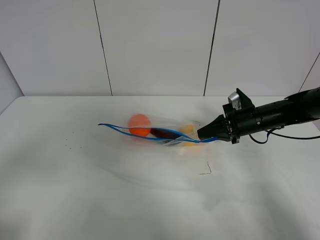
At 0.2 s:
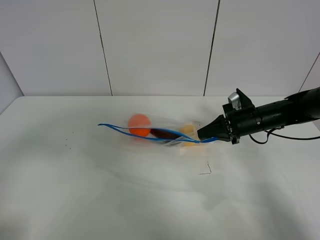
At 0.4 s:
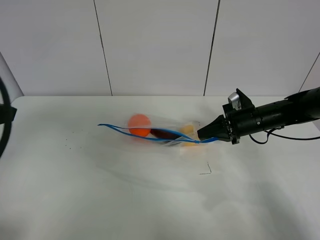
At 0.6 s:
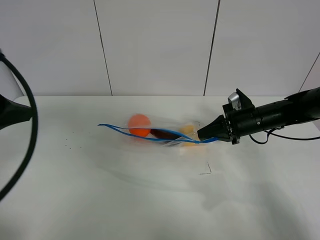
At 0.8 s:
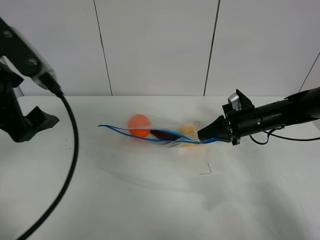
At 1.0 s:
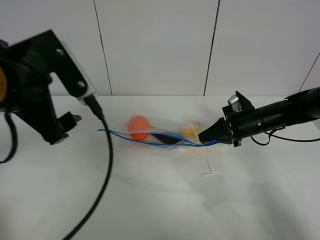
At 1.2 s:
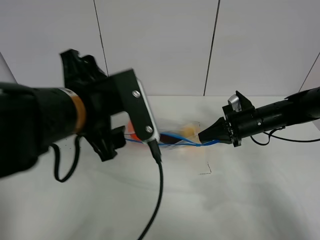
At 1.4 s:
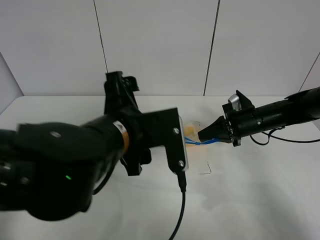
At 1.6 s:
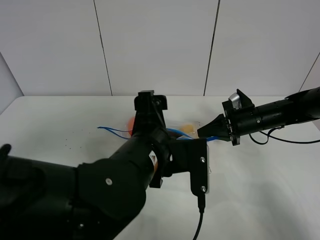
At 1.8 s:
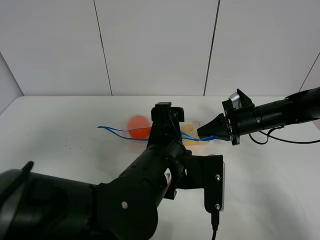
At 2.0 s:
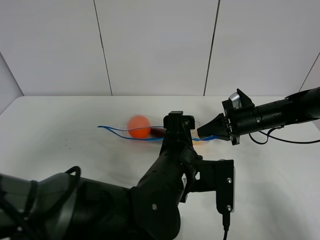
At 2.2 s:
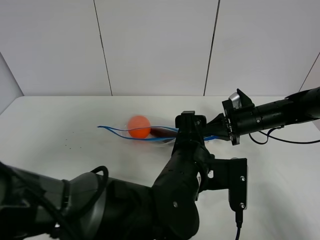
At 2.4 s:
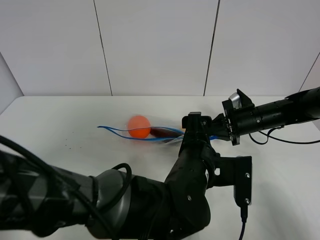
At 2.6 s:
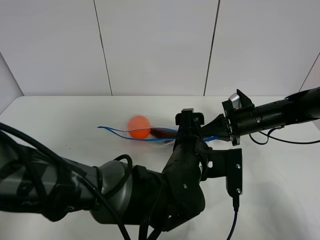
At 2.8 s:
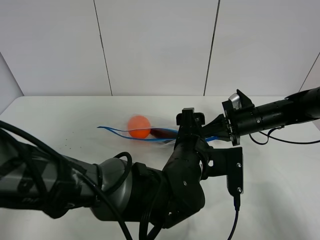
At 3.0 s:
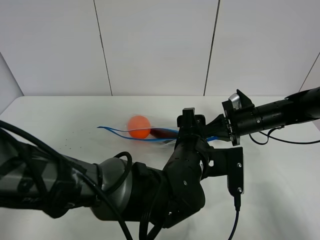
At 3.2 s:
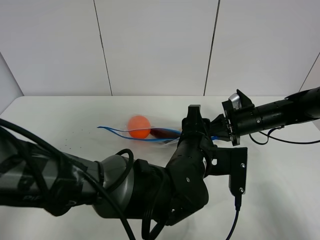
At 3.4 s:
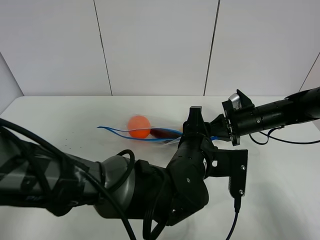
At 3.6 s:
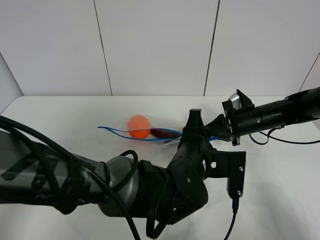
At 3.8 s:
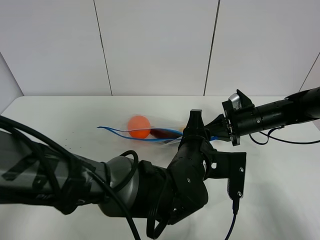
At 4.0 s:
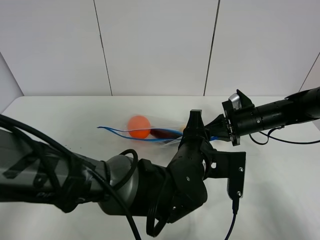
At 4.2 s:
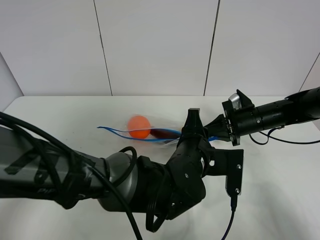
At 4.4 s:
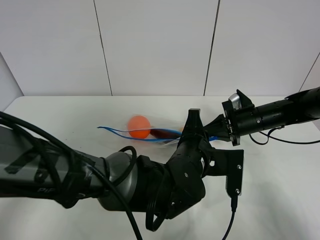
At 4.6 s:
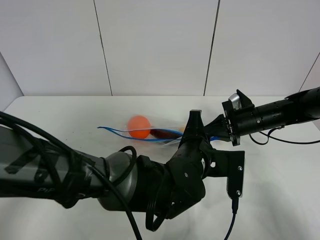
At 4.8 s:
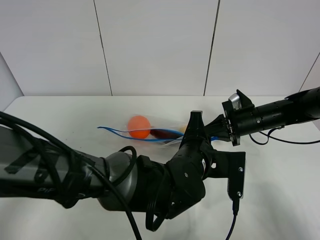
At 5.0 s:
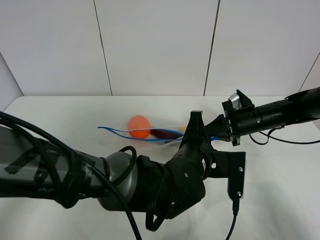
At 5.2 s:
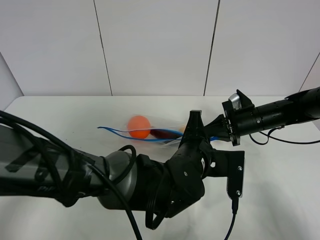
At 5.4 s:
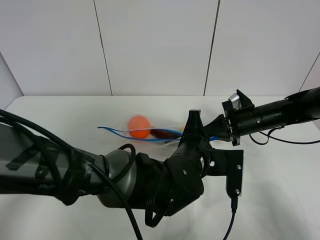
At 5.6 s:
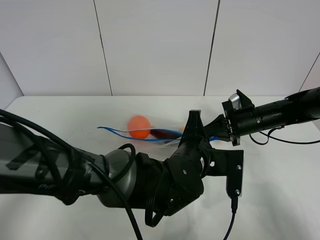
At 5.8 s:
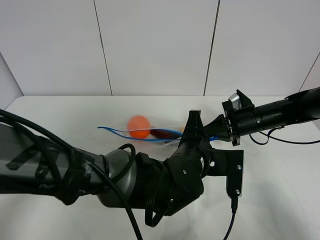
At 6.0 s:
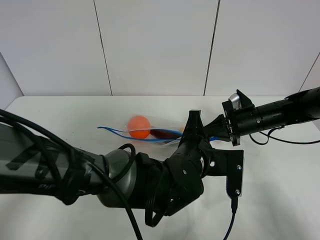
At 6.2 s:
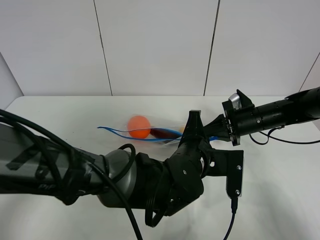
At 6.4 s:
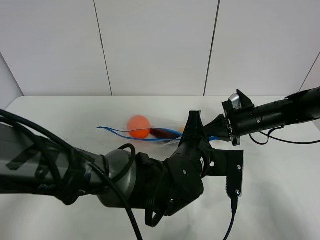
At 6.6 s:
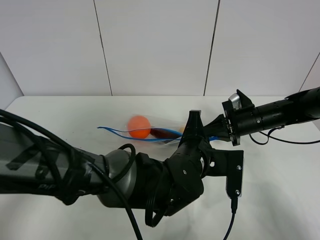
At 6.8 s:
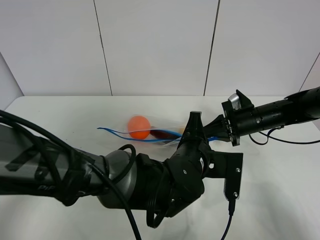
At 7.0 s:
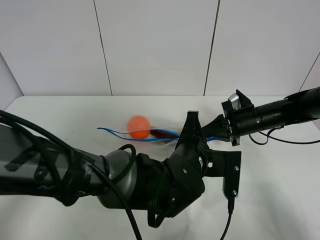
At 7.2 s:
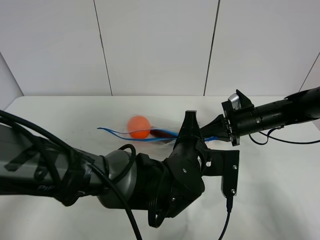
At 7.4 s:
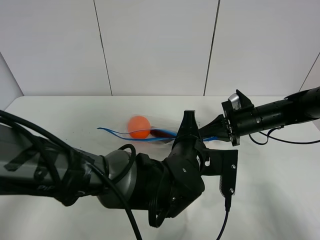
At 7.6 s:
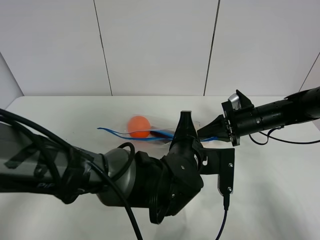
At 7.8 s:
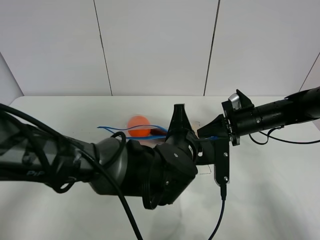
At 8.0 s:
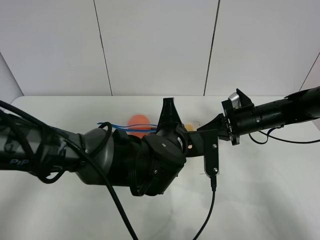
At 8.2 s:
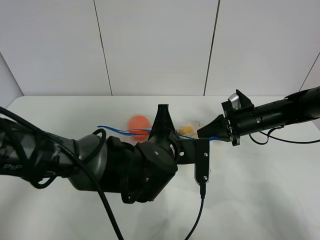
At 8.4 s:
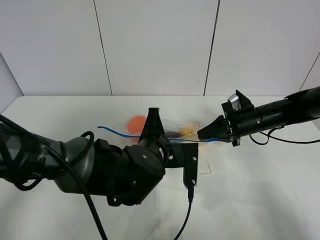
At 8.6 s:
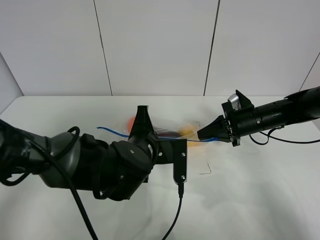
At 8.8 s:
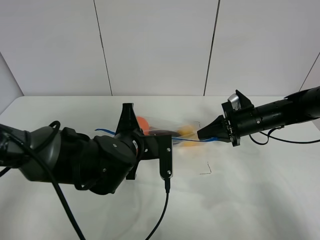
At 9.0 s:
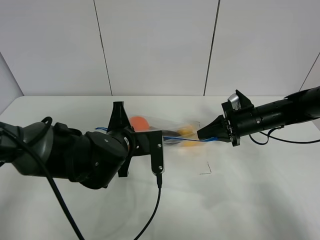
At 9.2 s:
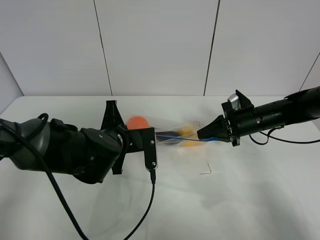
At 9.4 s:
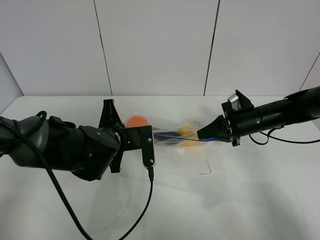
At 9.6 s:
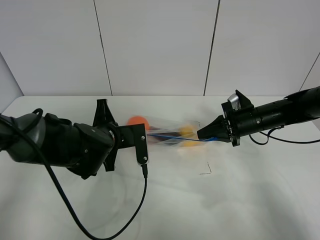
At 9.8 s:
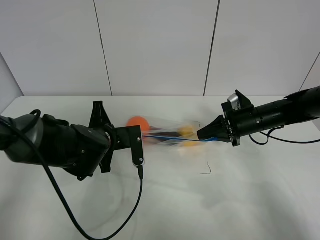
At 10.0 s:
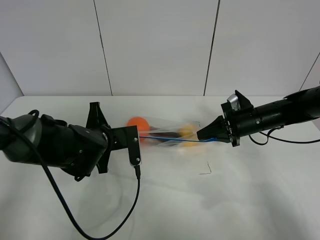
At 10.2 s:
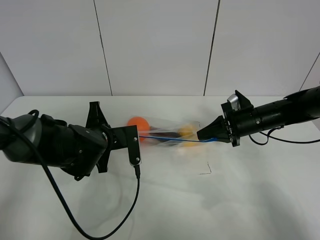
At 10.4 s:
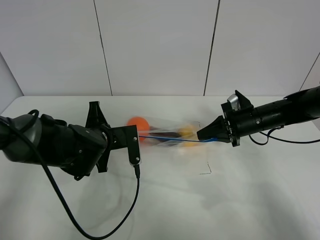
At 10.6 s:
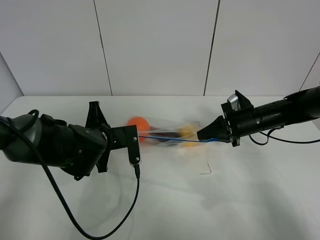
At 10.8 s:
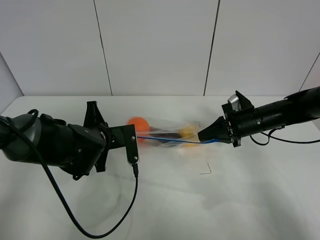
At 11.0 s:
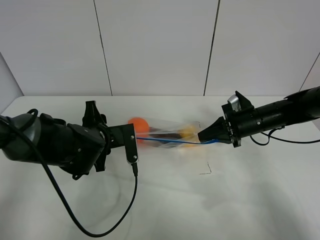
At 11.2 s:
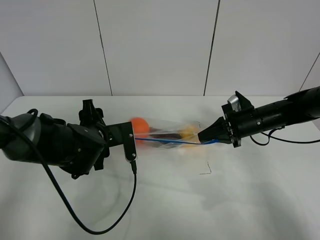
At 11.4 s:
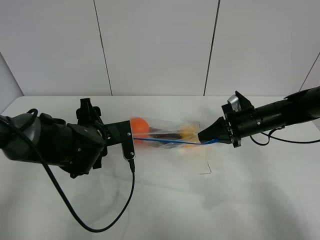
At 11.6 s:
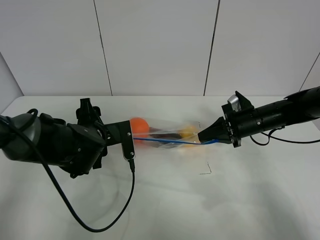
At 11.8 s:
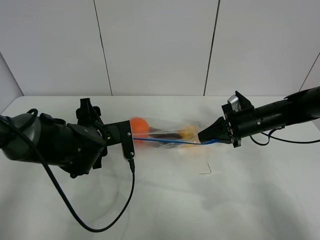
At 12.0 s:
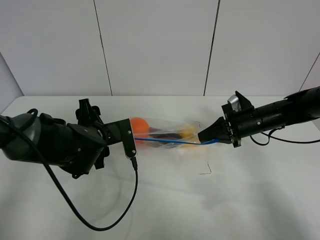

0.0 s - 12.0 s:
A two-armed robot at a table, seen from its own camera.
Step, 0.0 s - 11.4 s: Pull the fruit bag with left gripper.
0.0 s - 1.6 s: The left gripper moves to the right, roughly 30 cm.
1.6 s - 3.0 s: The left gripper moves to the right and downward, some 10 cm.
3.0 s - 4.4 s: The left gripper closes.
4.4 s - 6.0 s: Neither gripper changes place.
6.0 s - 7.6 s: The grippers stay close to where they were, moving slightly.
7.6 s - 9.0 s: The left gripper heads to the left, covering some 10 cm.
9.0 s - 10.4 s: The left gripper shifts by approximately 5 cm.
10.4 s - 12.0 s: The left gripper opens.

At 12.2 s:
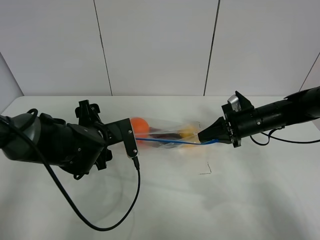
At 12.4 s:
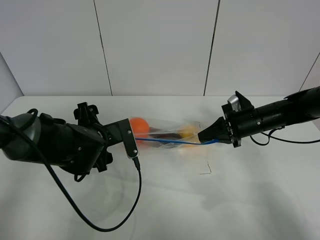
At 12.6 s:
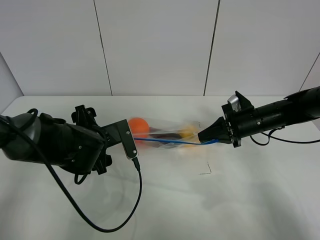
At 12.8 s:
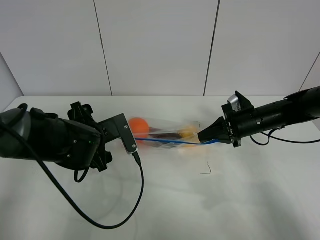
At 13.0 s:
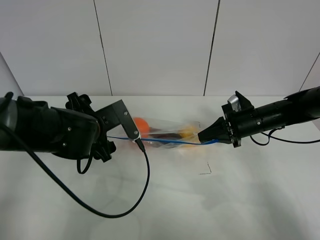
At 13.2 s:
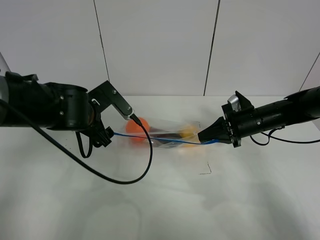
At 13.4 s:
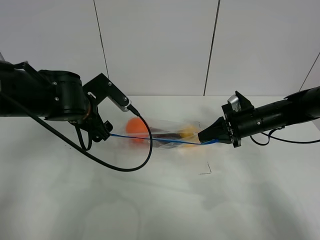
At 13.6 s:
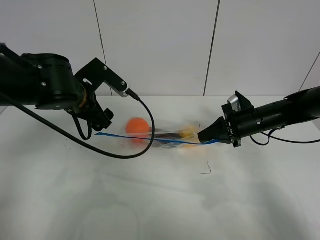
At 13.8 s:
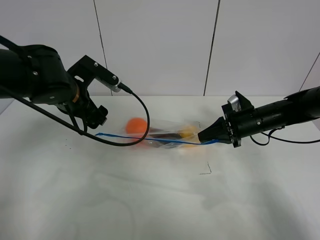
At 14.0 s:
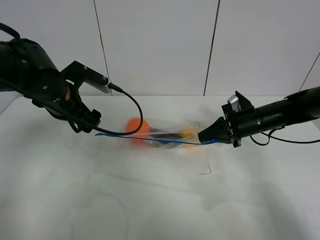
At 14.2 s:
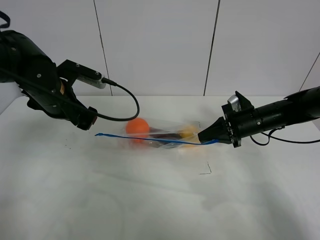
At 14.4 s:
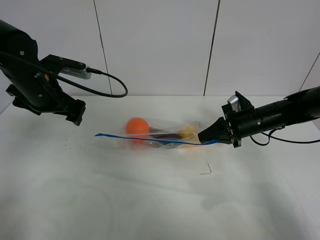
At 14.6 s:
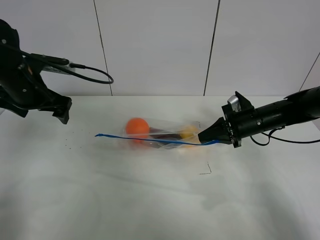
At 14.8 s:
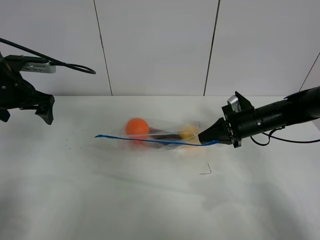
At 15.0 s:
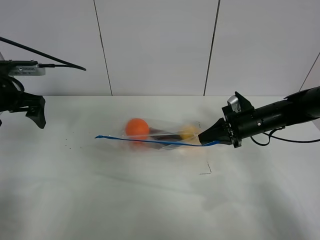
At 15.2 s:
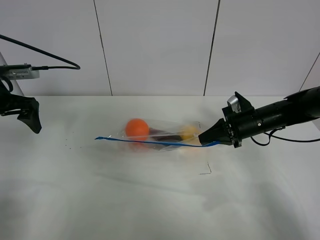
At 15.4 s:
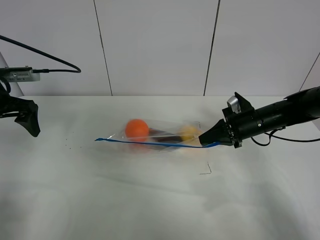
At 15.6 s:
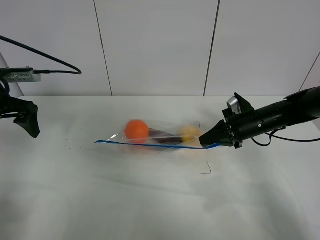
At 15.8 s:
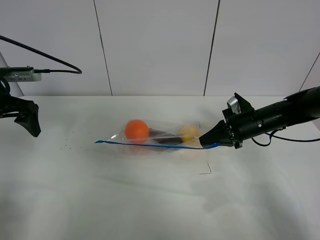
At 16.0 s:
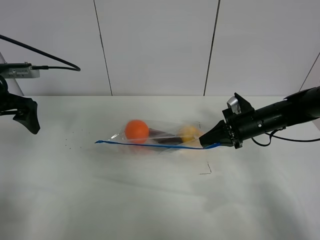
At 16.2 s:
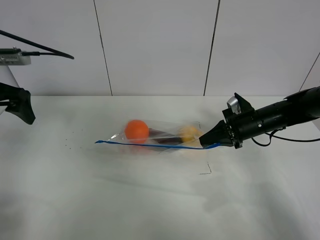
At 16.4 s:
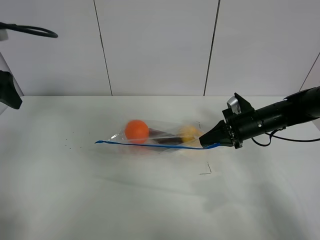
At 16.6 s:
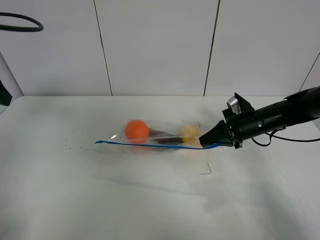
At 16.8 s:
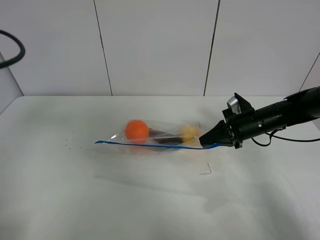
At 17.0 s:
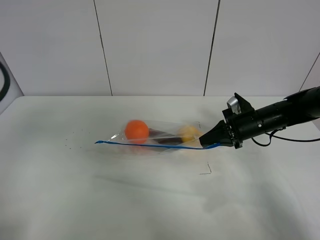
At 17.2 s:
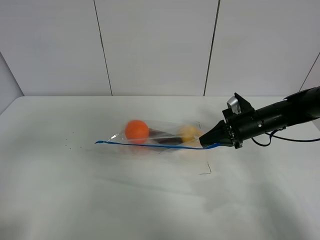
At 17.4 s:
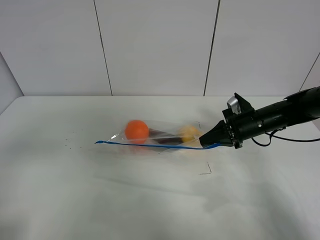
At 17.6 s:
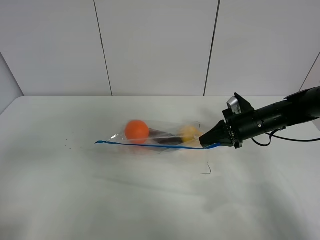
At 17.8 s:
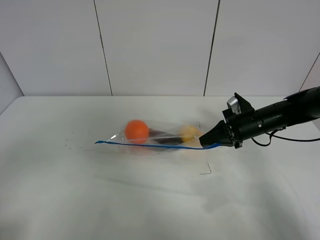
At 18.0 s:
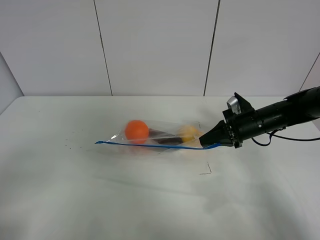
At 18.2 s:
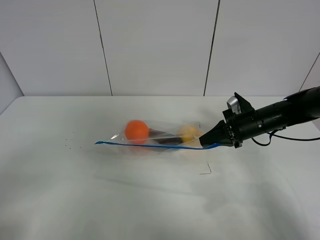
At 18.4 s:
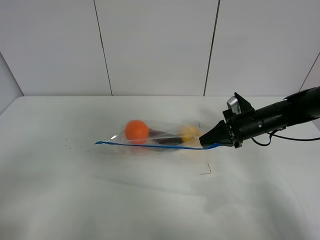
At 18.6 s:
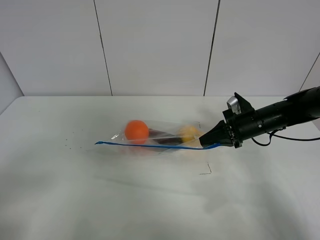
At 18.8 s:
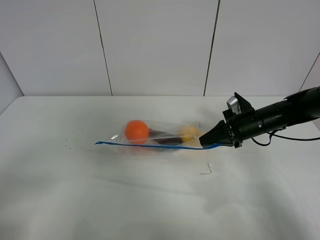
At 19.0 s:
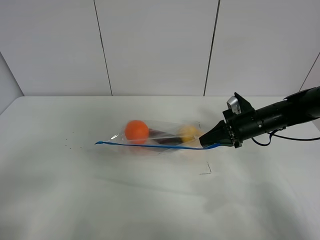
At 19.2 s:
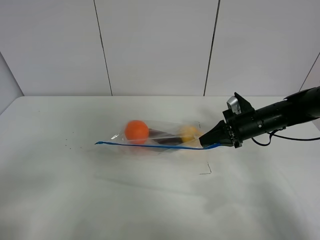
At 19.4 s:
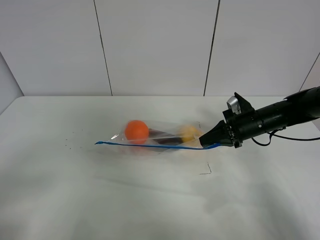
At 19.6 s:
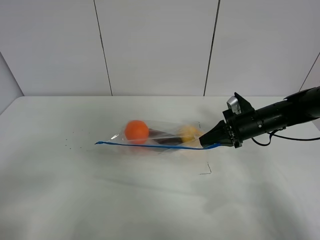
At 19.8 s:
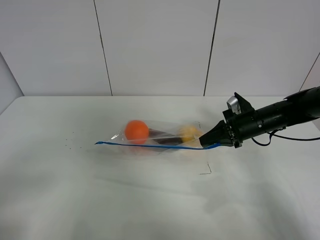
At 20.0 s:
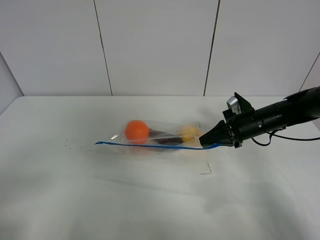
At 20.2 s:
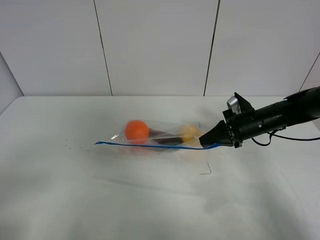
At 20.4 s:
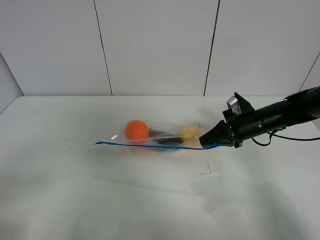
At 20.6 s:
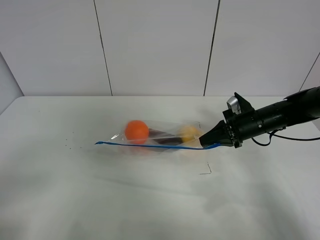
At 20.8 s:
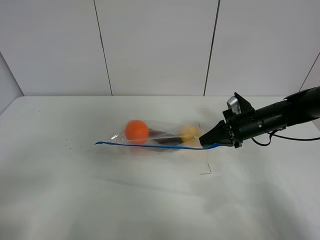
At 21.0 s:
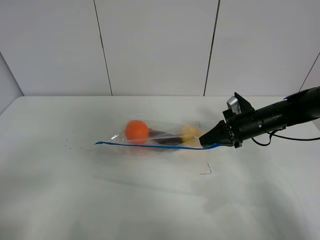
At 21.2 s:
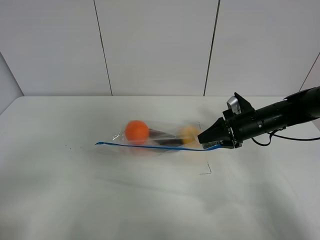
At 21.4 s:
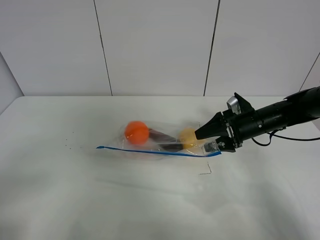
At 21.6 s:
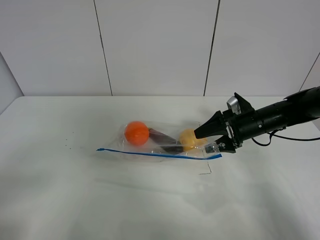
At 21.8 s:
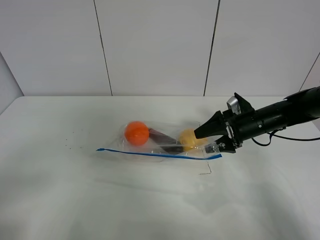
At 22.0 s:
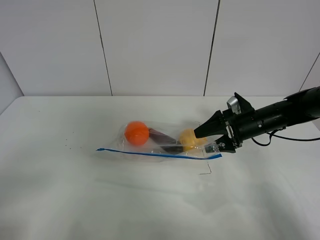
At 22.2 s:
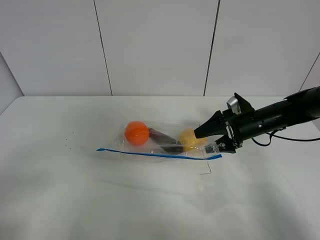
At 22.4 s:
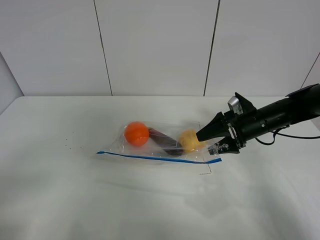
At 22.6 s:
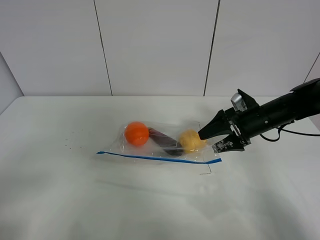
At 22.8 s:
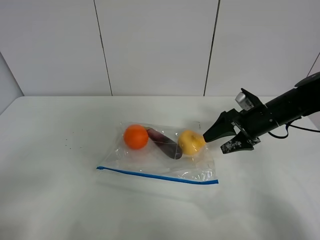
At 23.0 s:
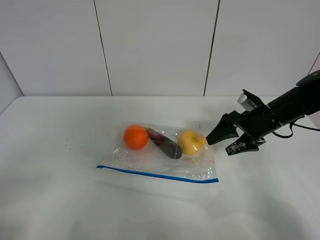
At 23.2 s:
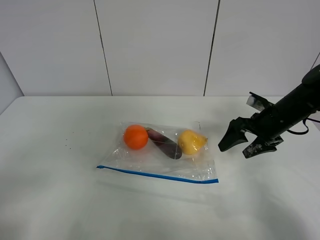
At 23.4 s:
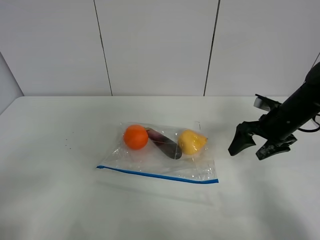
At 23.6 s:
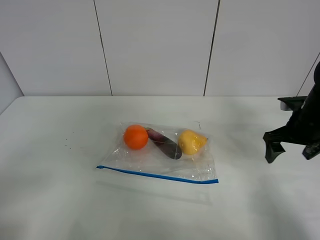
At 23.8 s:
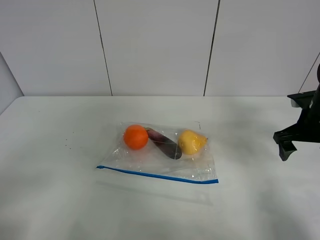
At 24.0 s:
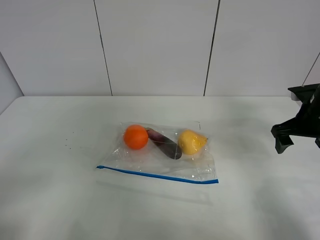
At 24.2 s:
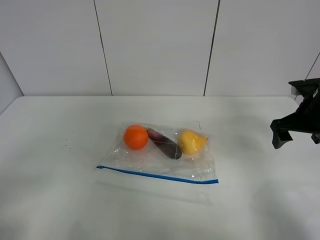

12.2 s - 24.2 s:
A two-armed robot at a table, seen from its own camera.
12.2 s - 13.8 s: The left gripper heads upward, covering roughly 10 cm.
13.8 s - 15.2 s: The left gripper moves to the left, approximately 20 cm.
15.2 s - 16.6 s: The left gripper goes about 15 cm upward and backward.
16.6 s - 18.2 s: The left gripper goes some 25 cm backward.
19.8 s - 21.2 s: The right gripper opens.
21.2 s - 22.6 s: The right gripper opens.
22.6 s - 24.2 s: The right gripper goes some 10 cm to the right and upward.
